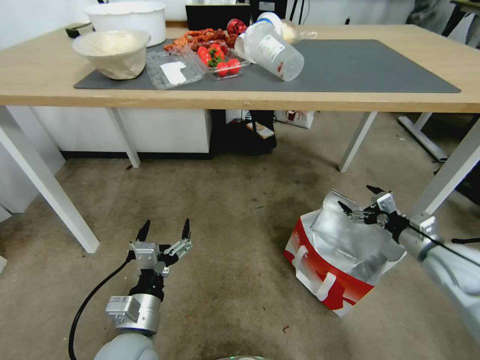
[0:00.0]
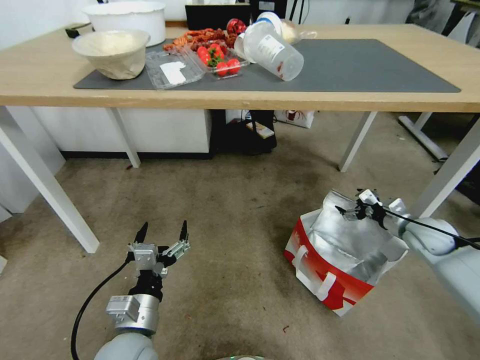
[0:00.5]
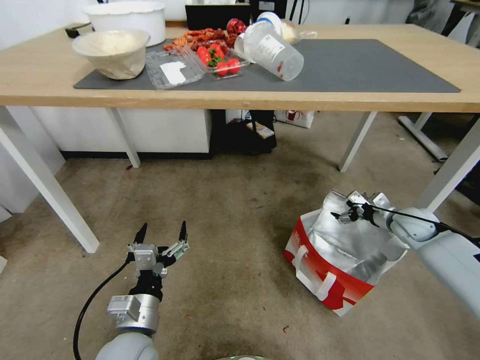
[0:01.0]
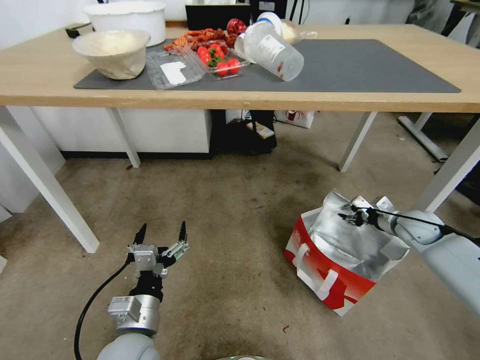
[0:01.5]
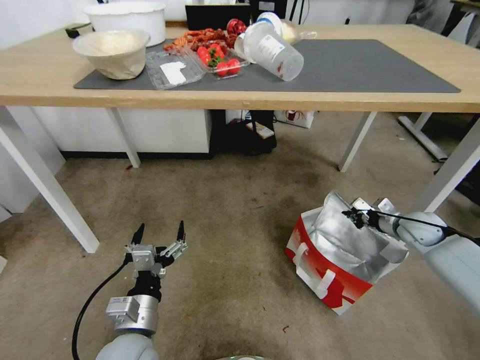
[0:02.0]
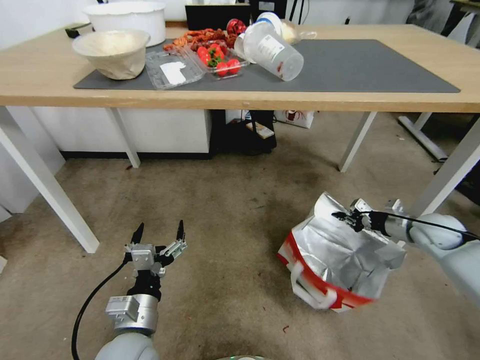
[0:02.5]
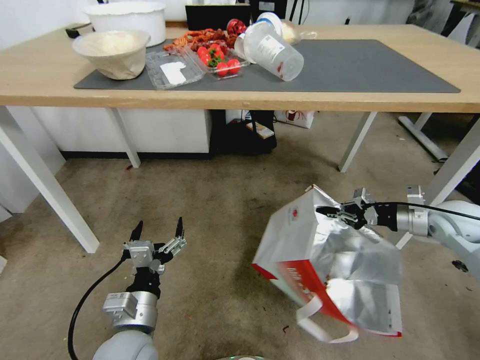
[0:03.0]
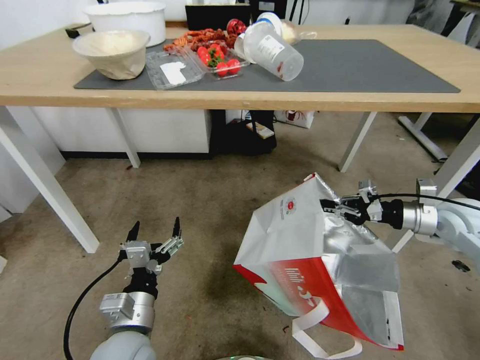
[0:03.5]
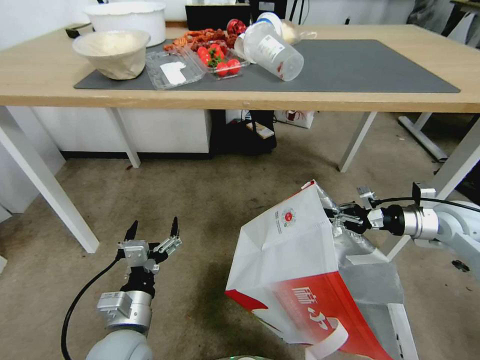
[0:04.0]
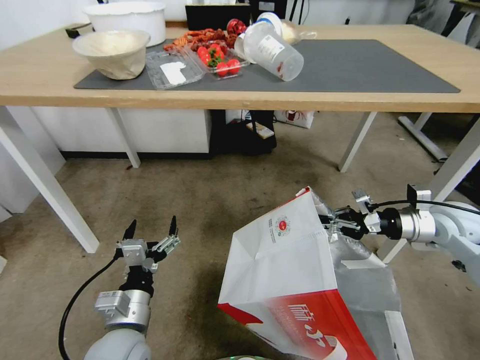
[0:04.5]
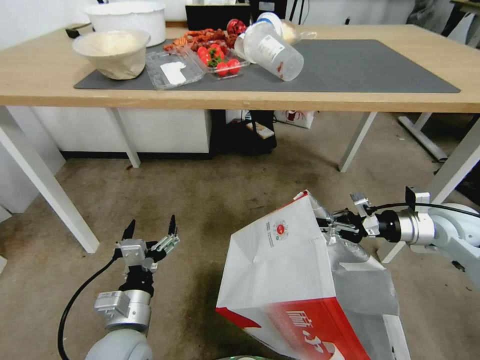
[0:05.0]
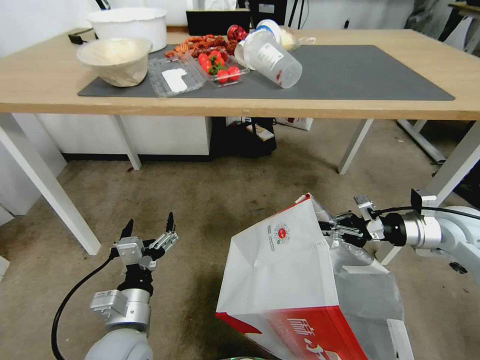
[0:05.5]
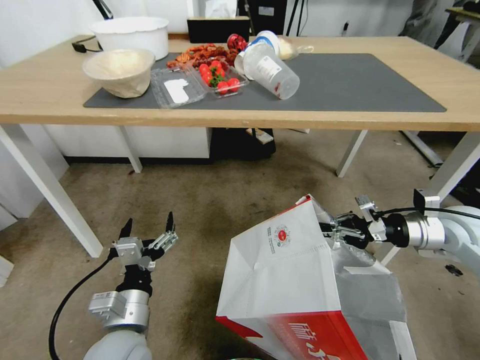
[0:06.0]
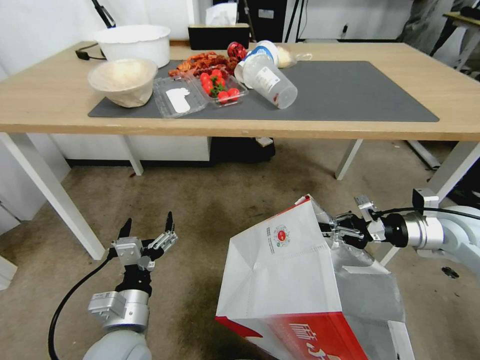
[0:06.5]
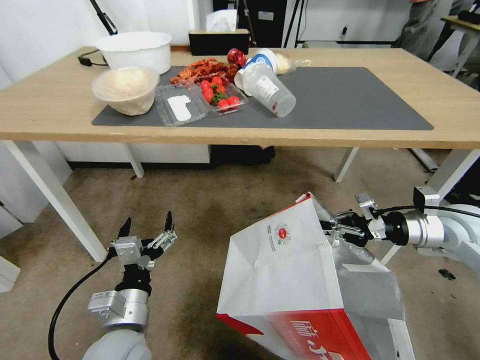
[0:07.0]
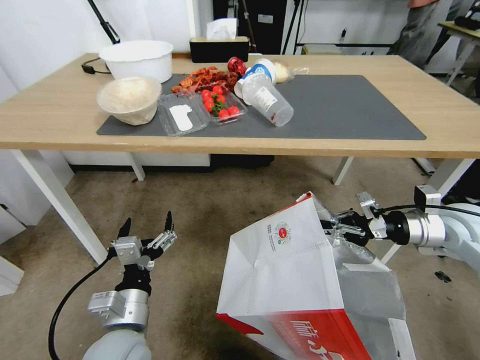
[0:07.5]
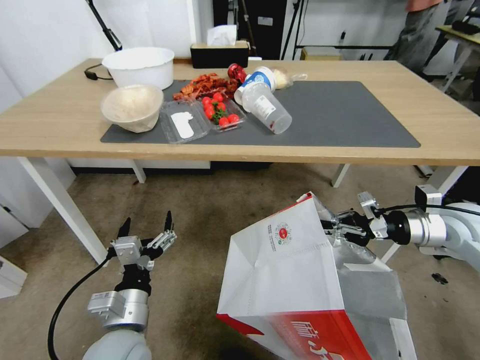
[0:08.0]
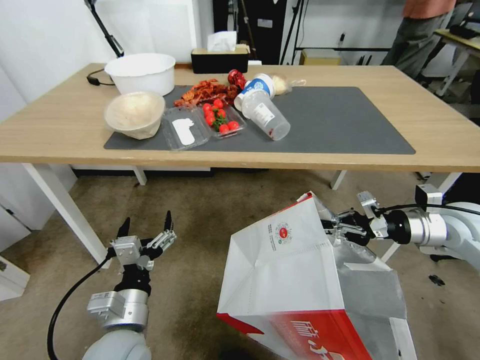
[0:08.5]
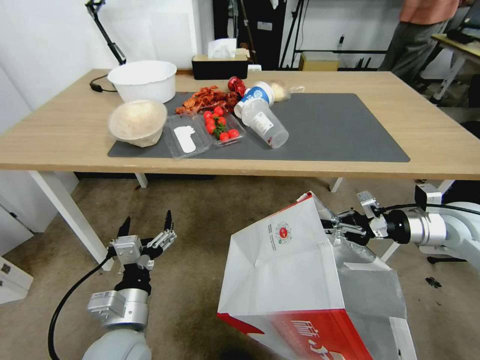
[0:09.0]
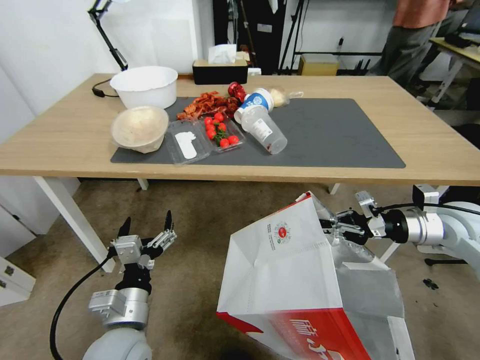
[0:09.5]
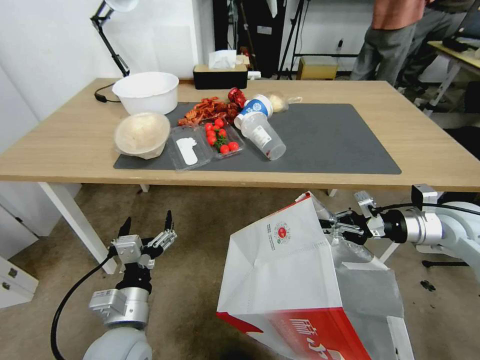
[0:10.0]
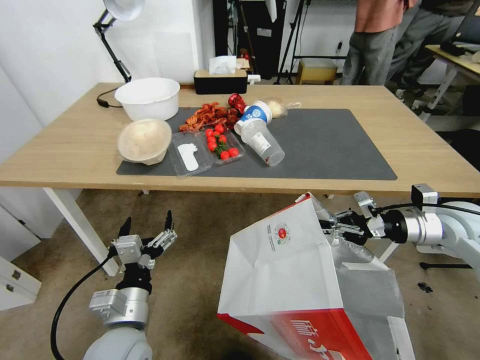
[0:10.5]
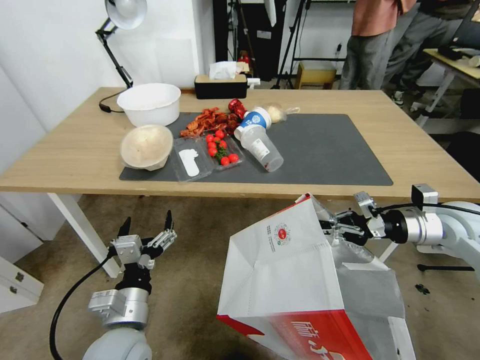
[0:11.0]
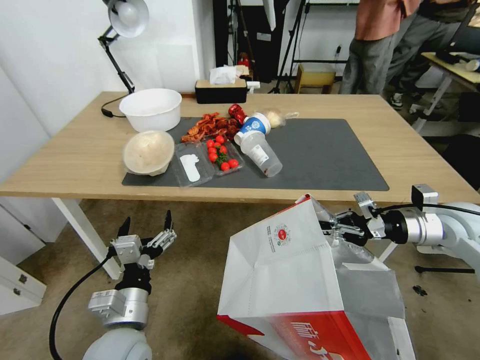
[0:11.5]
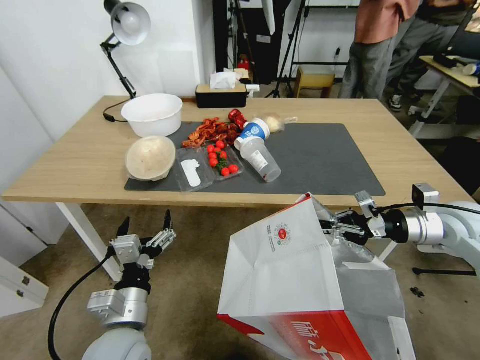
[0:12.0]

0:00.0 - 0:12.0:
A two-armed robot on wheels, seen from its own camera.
Task of the whole recording: Pick up the food delivery bag from the floor and place it on the table.
0:00.0 - 0:02.0: The right gripper heads forward and downward, covering some 15 cm, and closes up.
0:02.0 - 0:04.0: The right gripper goes about 15 cm upward and backward.

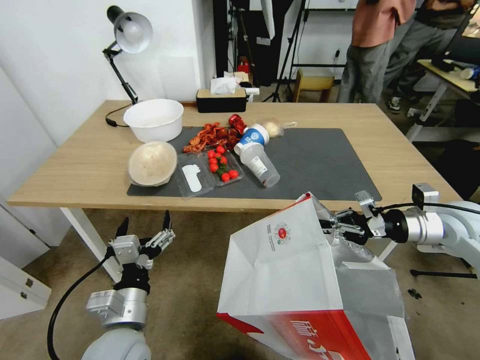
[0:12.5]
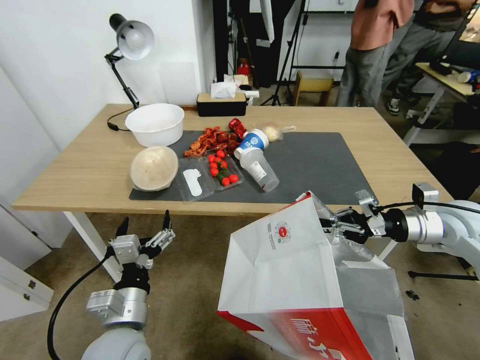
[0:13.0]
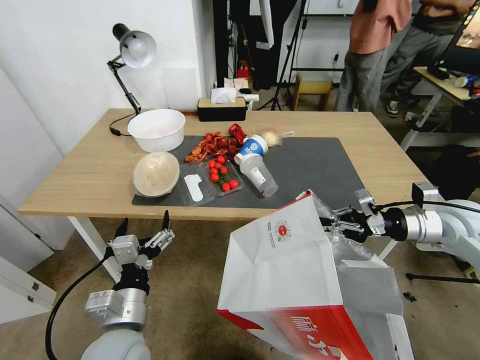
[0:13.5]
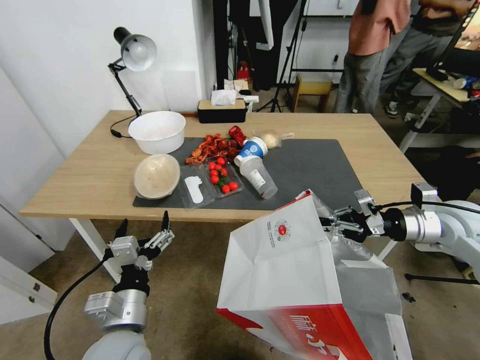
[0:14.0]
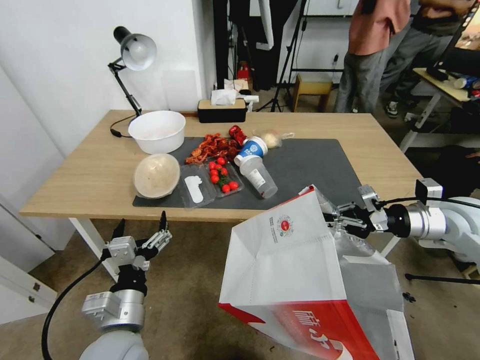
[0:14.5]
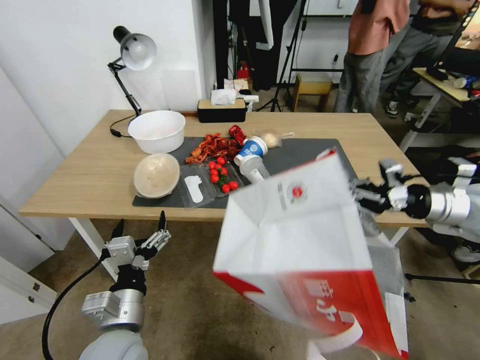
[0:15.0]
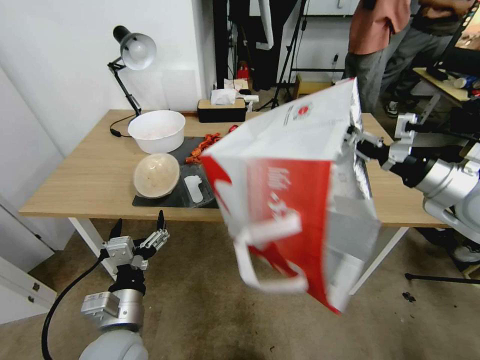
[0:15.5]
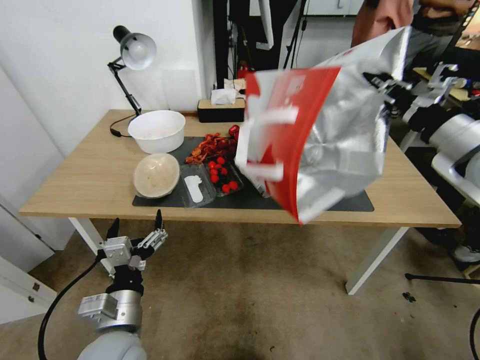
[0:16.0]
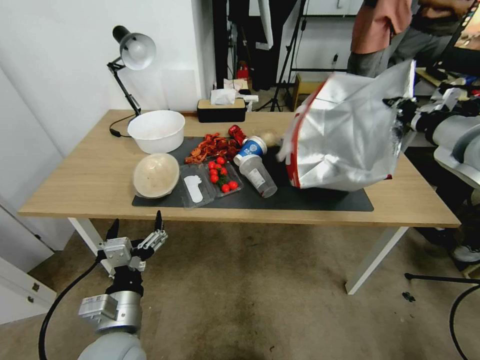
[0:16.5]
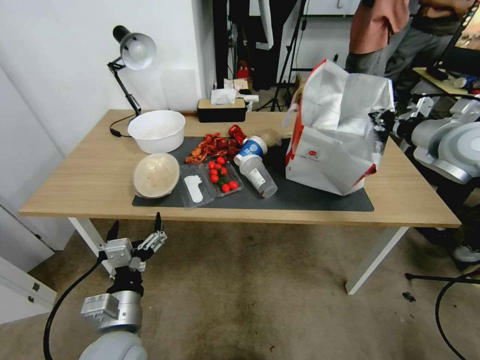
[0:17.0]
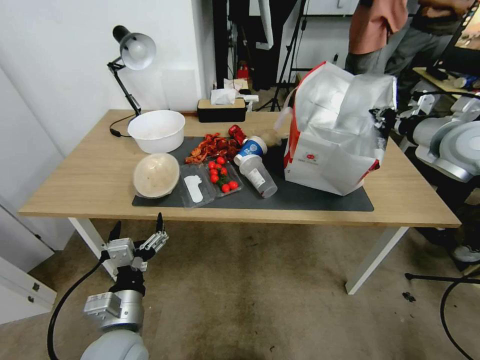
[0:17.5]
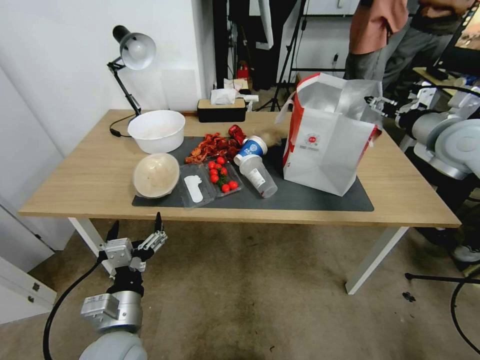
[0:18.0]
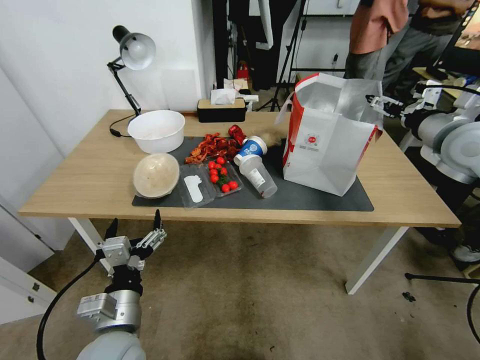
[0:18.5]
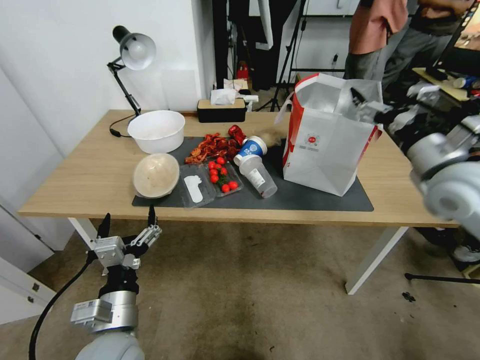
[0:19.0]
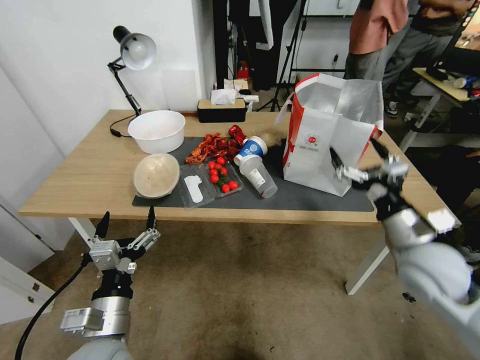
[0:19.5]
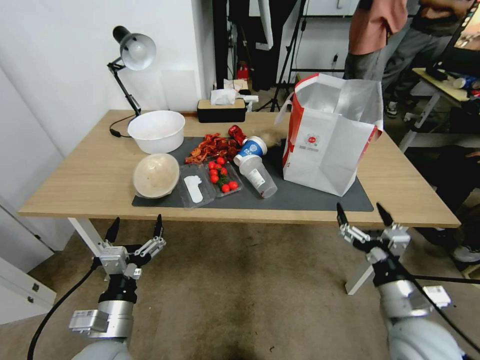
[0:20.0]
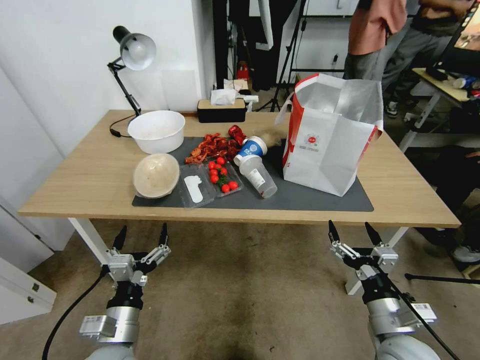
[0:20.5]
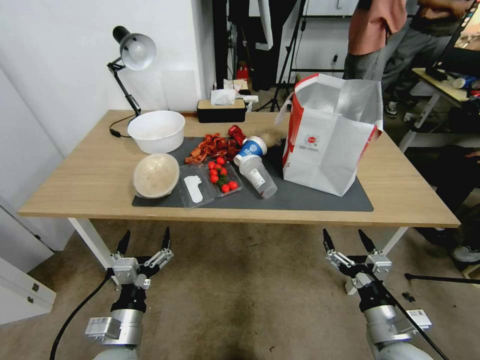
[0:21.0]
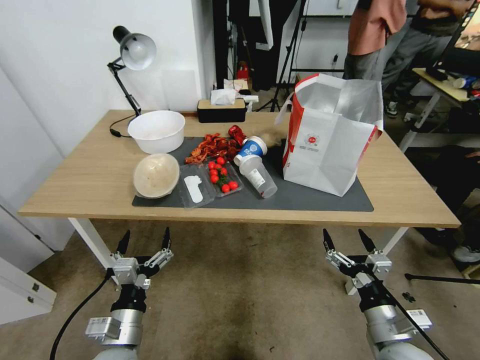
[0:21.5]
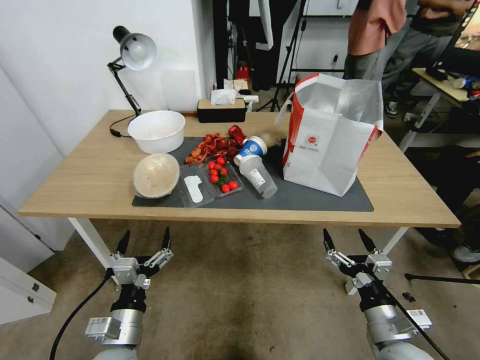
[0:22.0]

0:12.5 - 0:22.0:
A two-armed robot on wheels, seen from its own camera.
Task of the whole recording: Pick up the food delivery bag from the floor and place it on the table.
0:14.5 - 0:16.5: The right gripper goes roughly 15 cm upward.
0:16.5 - 0:18.0: The right gripper is displaced forward by some 5 cm, and opens.
0:18.0 - 0:20.0: The right gripper moves backward and downward, roughly 35 cm, and opens.
0:20.0 - 0:22.0: The right gripper moves about 5 cm.
